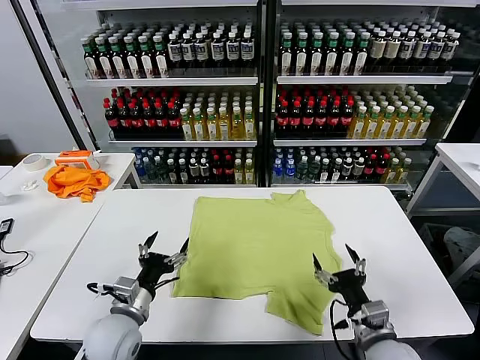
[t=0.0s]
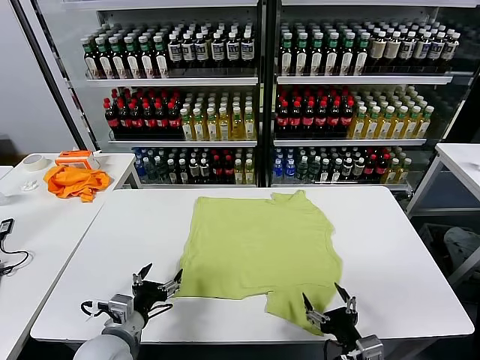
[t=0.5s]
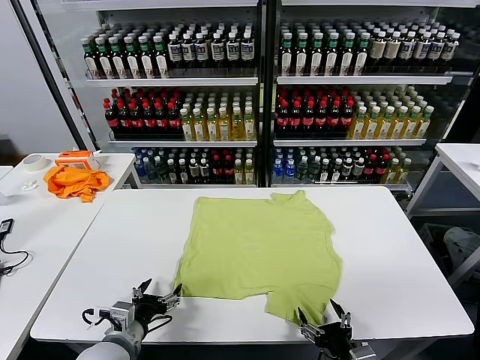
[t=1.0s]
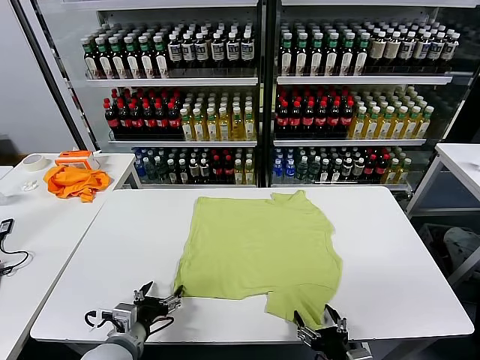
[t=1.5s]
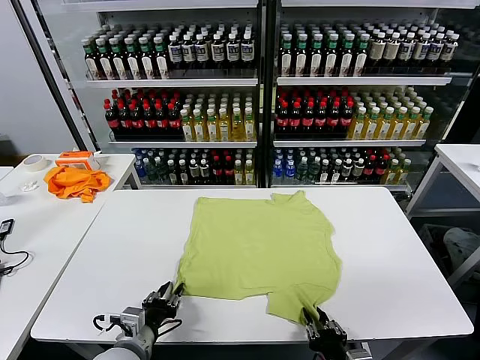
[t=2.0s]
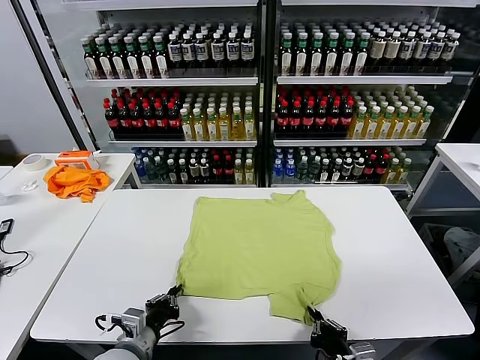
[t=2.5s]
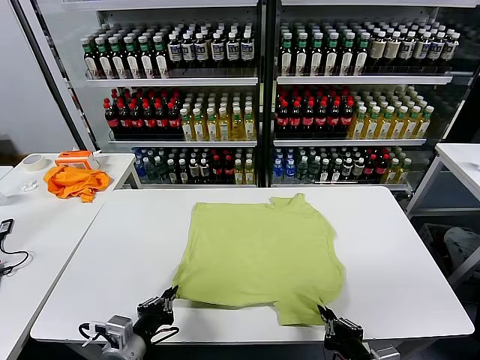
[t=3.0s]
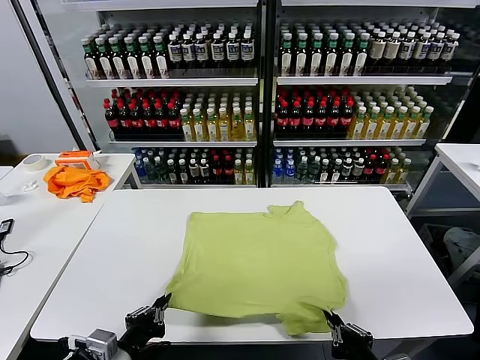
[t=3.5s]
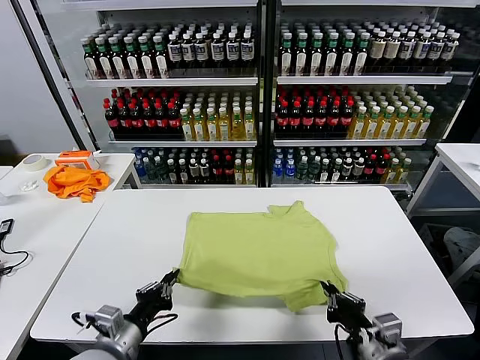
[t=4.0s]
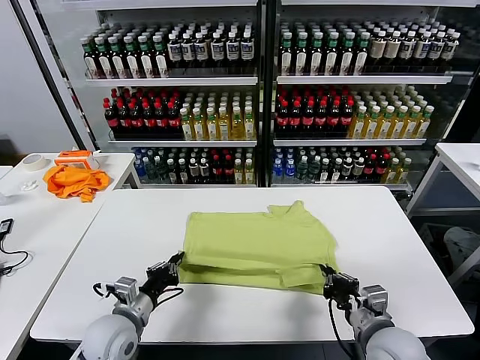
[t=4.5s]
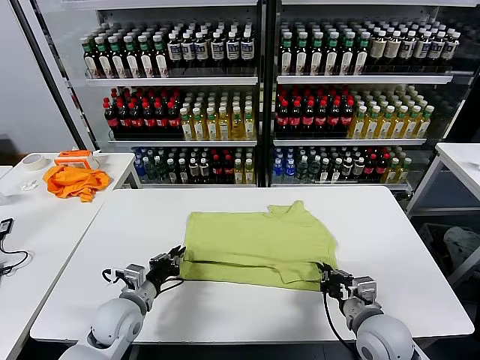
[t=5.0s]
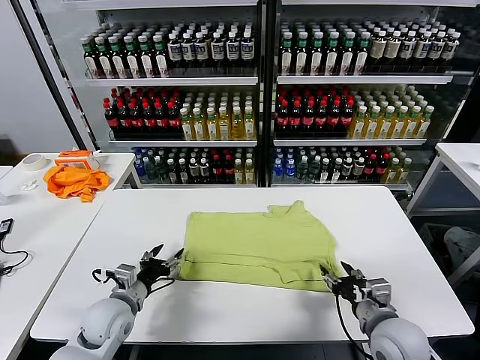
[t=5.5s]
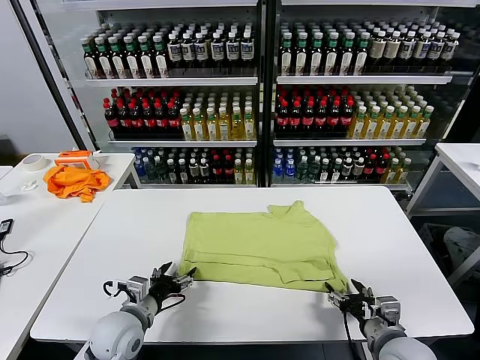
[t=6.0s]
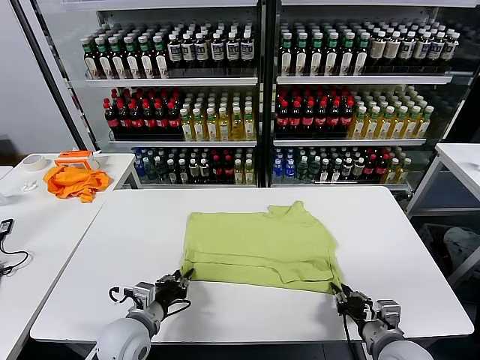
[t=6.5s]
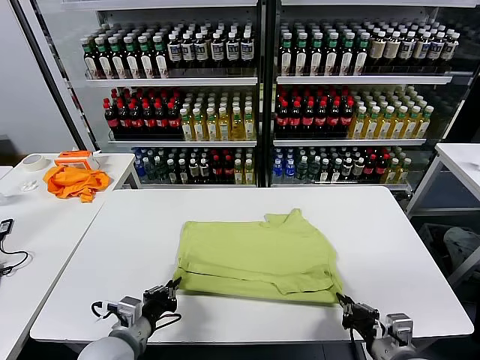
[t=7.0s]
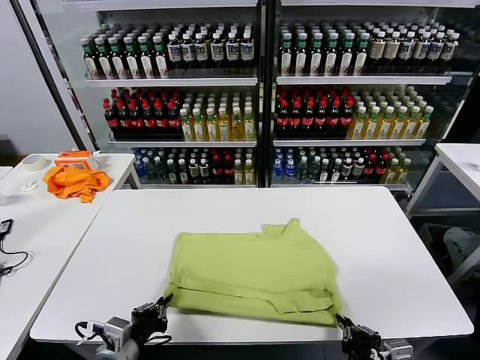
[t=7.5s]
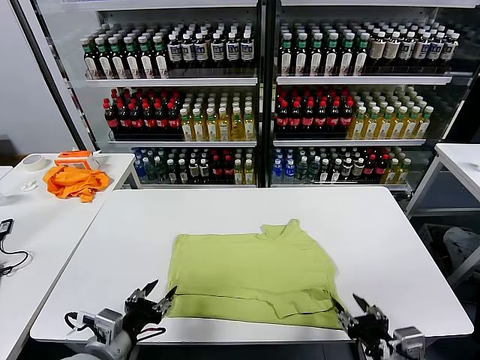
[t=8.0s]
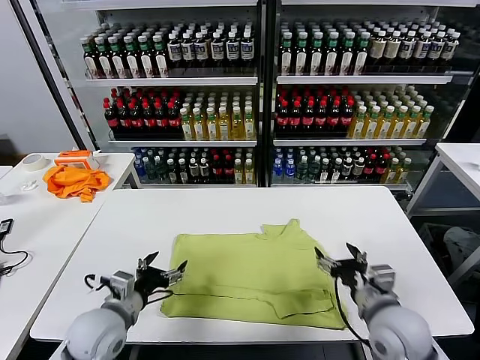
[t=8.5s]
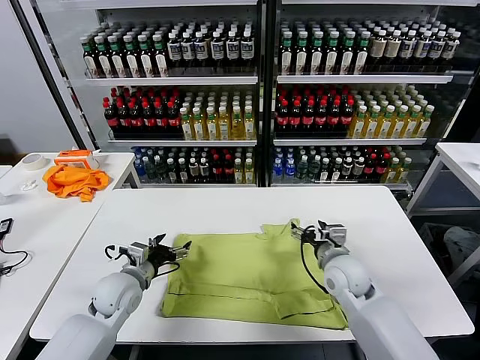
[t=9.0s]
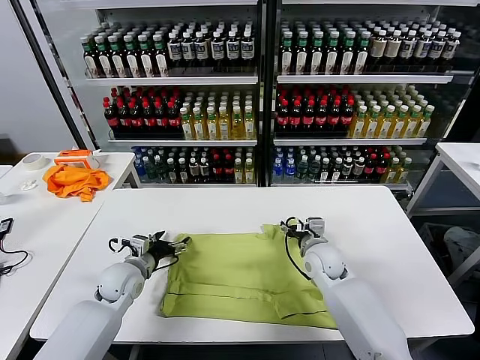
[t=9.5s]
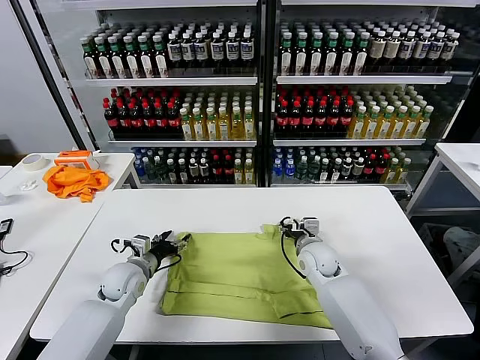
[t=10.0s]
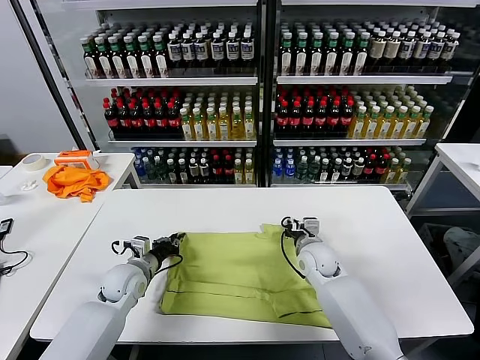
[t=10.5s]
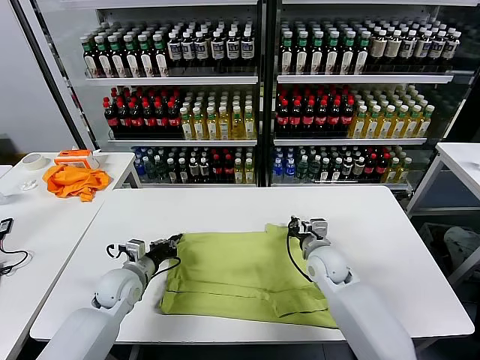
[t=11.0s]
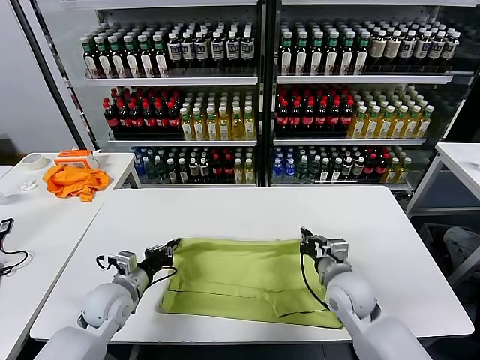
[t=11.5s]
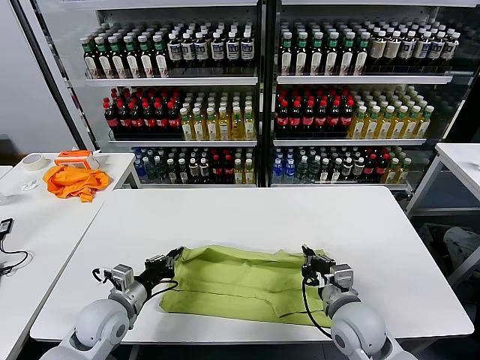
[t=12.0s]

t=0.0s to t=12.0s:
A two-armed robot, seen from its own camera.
Task of the whole recording: fold and organize the clothes.
Step, t=0.0s to t=2.0s: use both grippers simultaneously to clamp the lower edge of the clothing fabric.
Step, t=2.5s to t=5.0s: use both grippers to drag the lower edge of the fabric forward and fold it over the upper edge.
Step, t=5.5s to t=7.5s: Drag the clothes downward with both gripper.
Step, t=8.0s to t=10.5s: use both grippers simultaneously to clamp the upper edge of the clothing fabric.
t=2.0s to t=4.0s: The right gripper heads upward and forward, covering approximately 10 cm, while the left gripper travels upward by approximately 5 cm.
t=4.0s to t=6.0s: The left gripper shifts some 5 cm forward, and opens, while the right gripper changes place by some 5 cm, and opens.
t=6.0s to t=8.0s: The left gripper shifts approximately 10 cm backward and upward, and closes and opens again. Meanwhile the right gripper moves upward and backward, some 10 cm, and closes, then opens again.
t=8.0s to t=10.0s: The two grippers go roughly 25 cm forward.
t=10.0s to t=12.0s: The left gripper moves backward, about 10 cm, and closes up. Meanwhile the right gripper is displaced backward by some 20 cm, and closes its fingers.

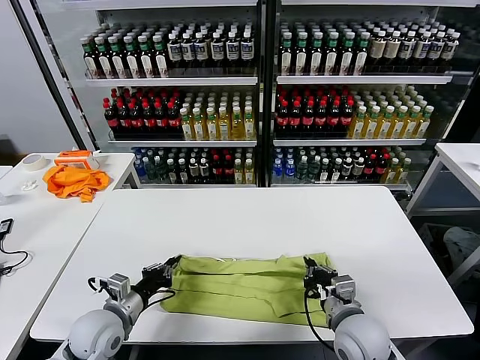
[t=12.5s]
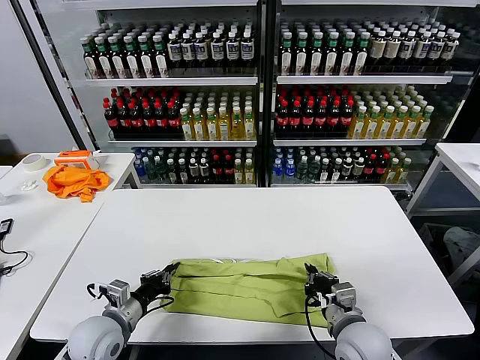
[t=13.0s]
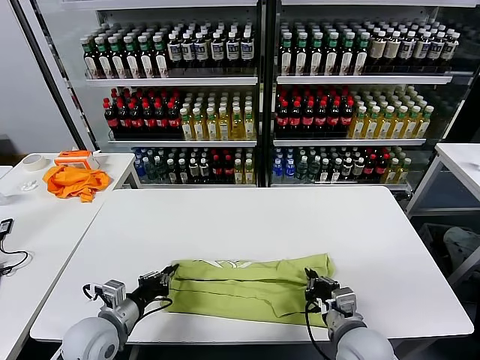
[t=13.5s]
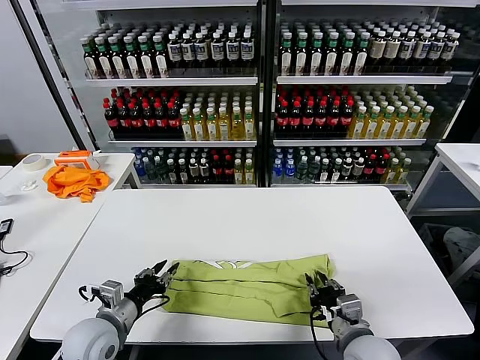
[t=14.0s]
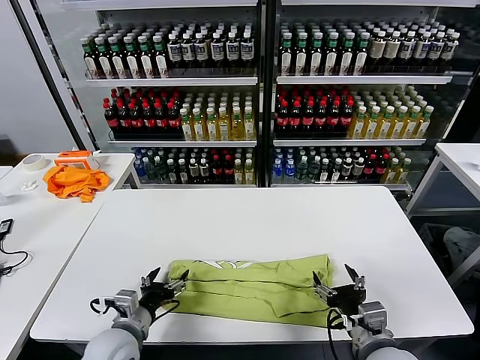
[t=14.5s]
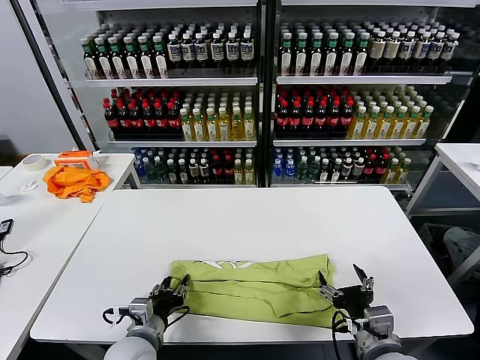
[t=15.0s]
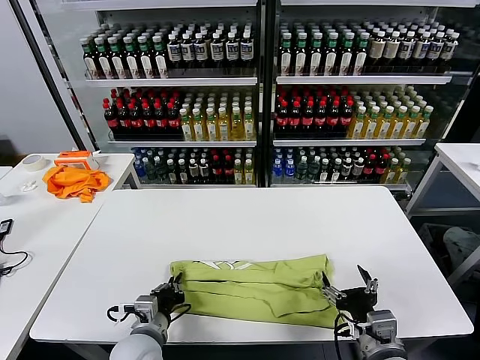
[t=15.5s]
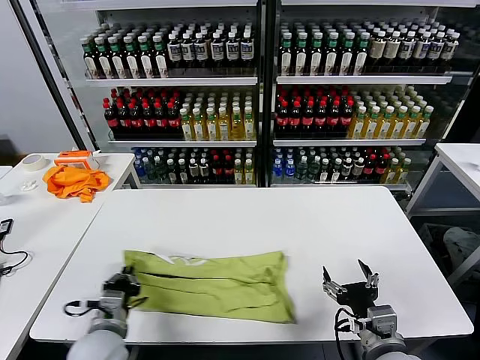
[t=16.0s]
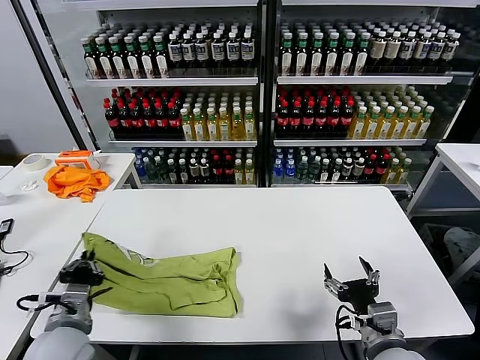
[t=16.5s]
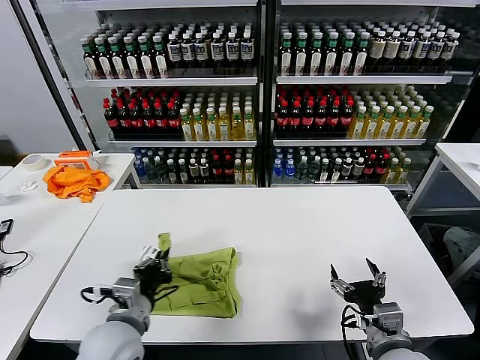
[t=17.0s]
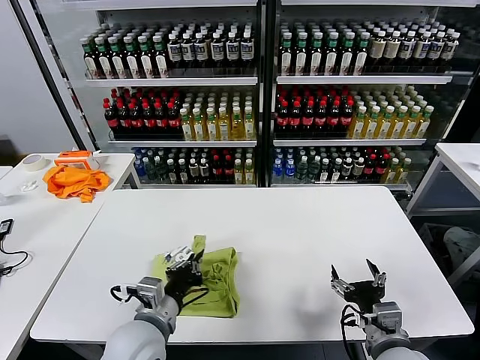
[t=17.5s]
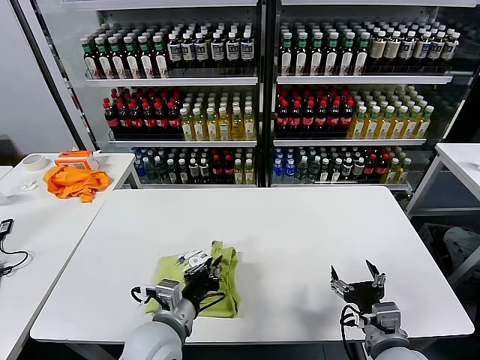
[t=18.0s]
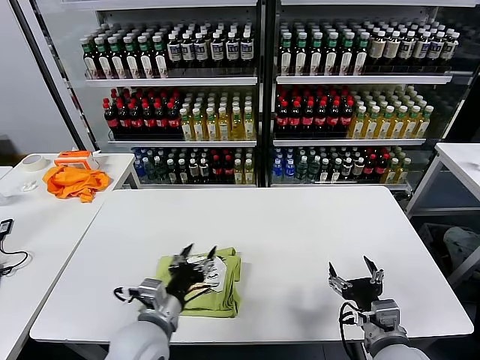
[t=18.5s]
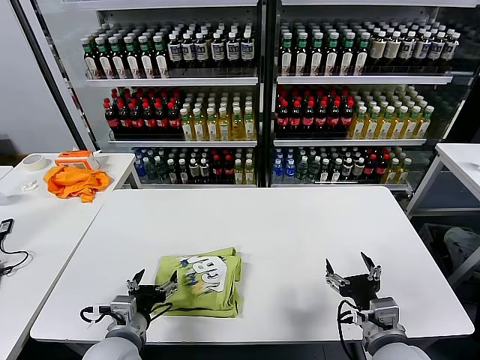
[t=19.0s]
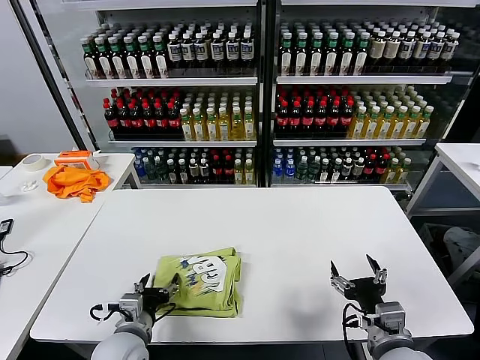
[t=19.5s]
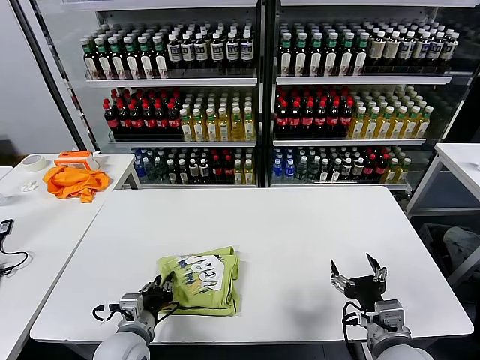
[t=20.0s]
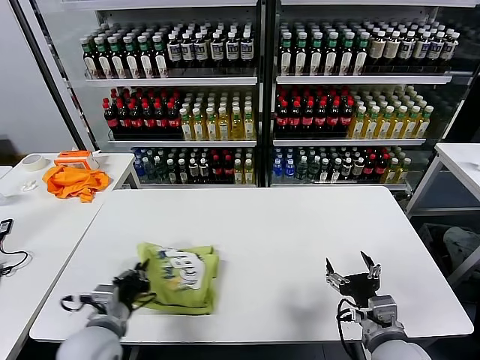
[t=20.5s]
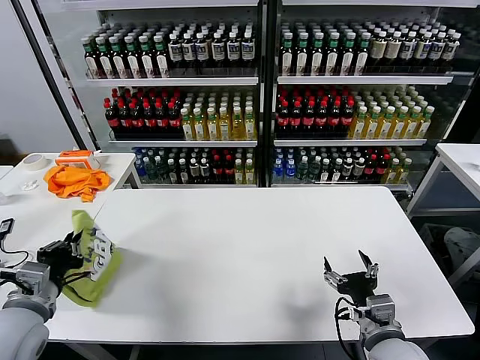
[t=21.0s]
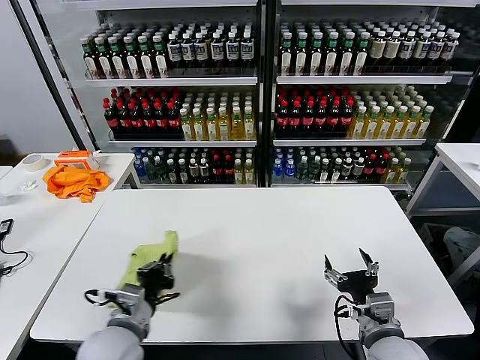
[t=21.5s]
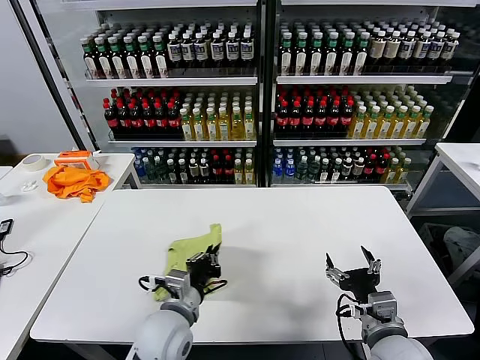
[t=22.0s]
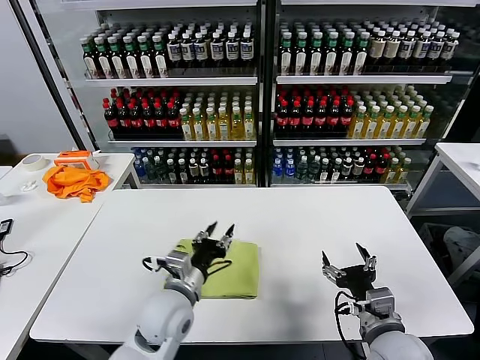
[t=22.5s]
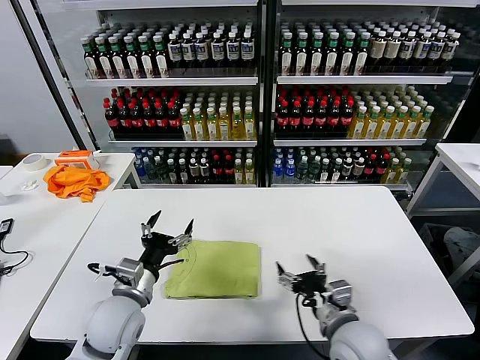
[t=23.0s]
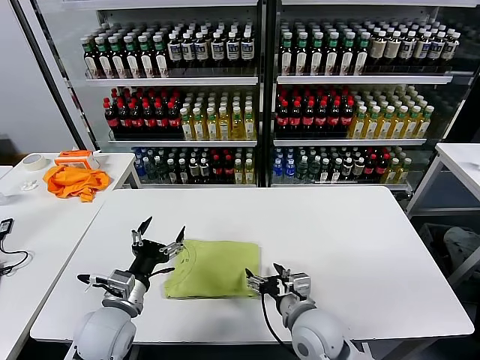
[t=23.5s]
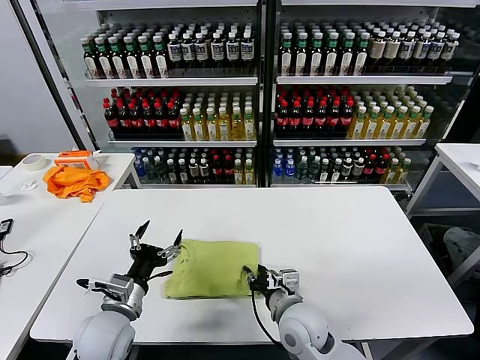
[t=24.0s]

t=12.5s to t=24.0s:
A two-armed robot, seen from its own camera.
Task of the whole recording: fold and organize the clothes.
Step, t=14.5s to t=15.0s: use the left gripper to clamp the left edge of the fabric.
Step, t=16.0s to t=18.0s: use the left gripper to drag the left edge of the fabric to the left and folds it over the right edge.
Step, t=18.5s to t=22.0s: Flip the folded clothes over with left gripper.
t=12.5s to t=14.5s: The right gripper moves backward, approximately 5 cm, and opens its fingers, while the left gripper changes place by some 5 cm, and opens its fingers.
t=14.5s to t=16.5s: The left gripper is displaced upward and to the left by roughly 10 cm, and closes.
t=16.5s to t=18.5s: The left gripper shifts some 15 cm to the right, and opens its fingers.
t=18.5s to t=20.0s: The left gripper goes approximately 10 cm downward and to the left.
t=20.0s to t=22.0s: The left gripper goes approximately 10 cm to the right and upward.
t=22.0s to t=24.0s: The right gripper travels to the left and forward by about 15 cm, and closes; the left gripper travels to the left by some 10 cm, and opens up.

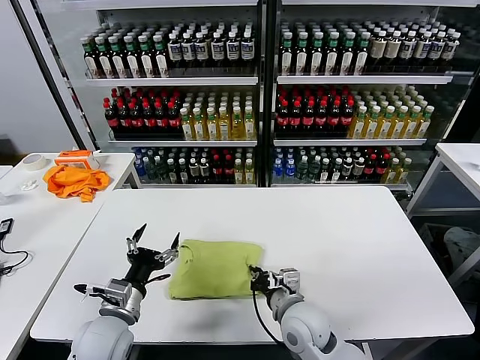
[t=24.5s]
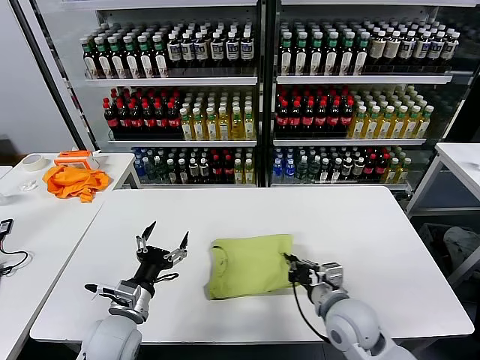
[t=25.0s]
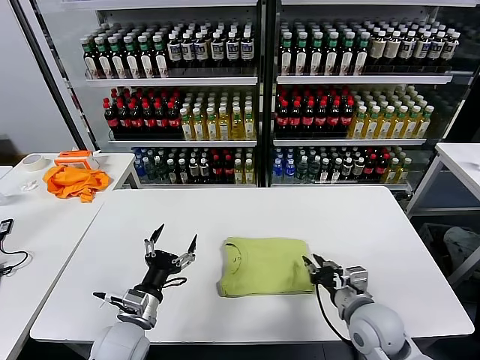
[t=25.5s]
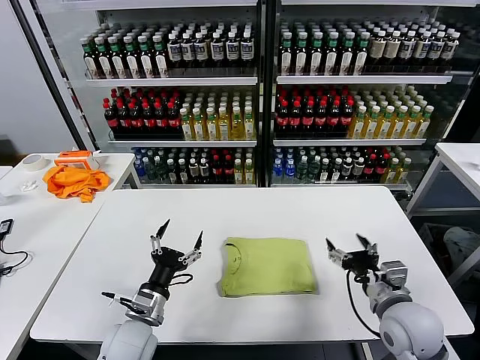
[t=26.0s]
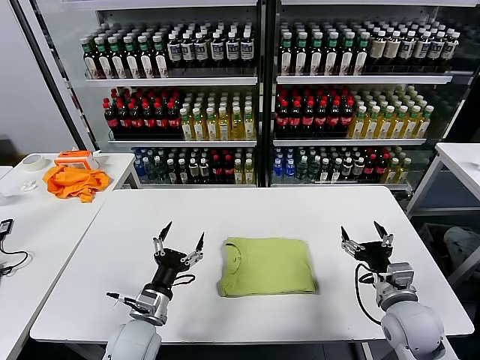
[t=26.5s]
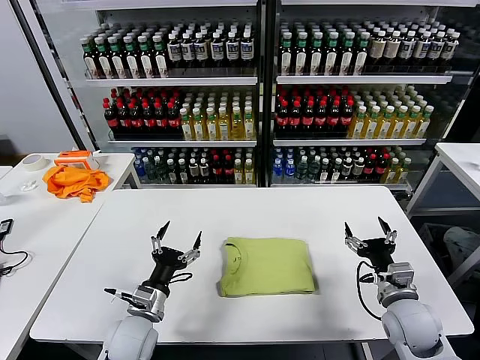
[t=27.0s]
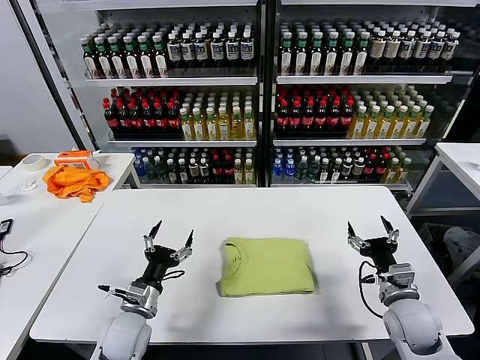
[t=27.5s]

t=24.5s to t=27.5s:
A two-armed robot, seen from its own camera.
Task of the whole recording: fold and organize the clothes.
t=24.5s to t=26.0s: The right gripper moves to the right, approximately 20 cm, and opens.
t=26.0s to t=27.5s: The right gripper is displaced downward by approximately 5 cm.
